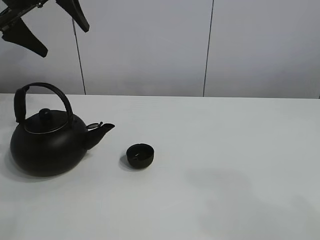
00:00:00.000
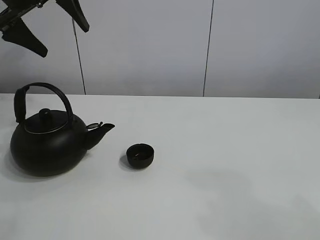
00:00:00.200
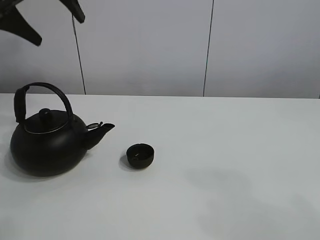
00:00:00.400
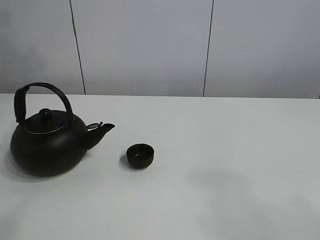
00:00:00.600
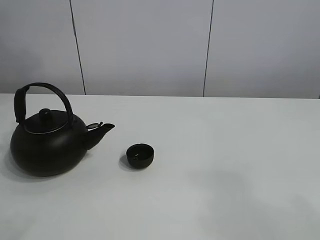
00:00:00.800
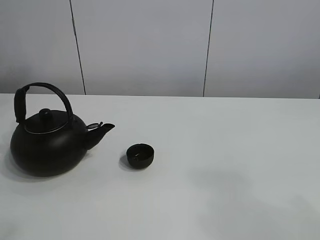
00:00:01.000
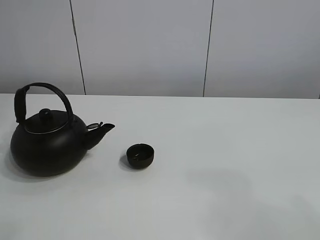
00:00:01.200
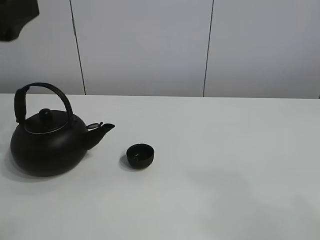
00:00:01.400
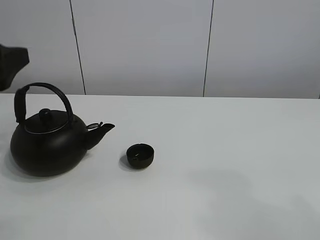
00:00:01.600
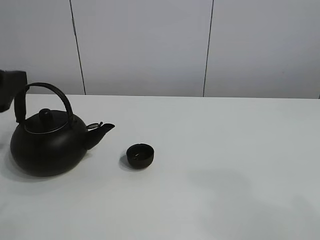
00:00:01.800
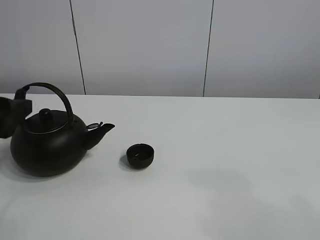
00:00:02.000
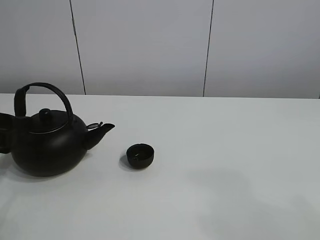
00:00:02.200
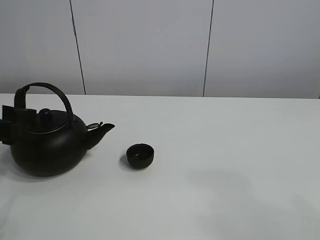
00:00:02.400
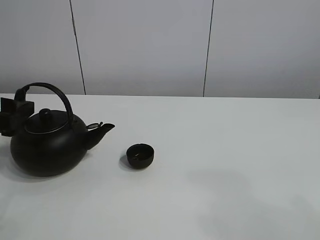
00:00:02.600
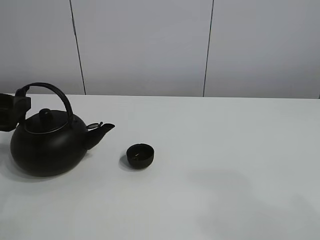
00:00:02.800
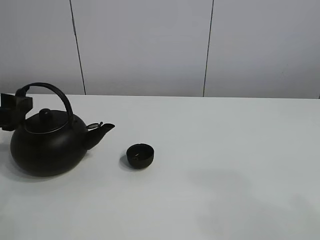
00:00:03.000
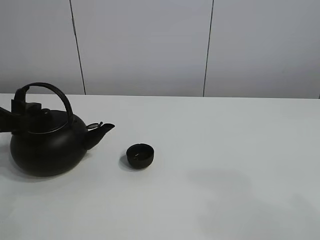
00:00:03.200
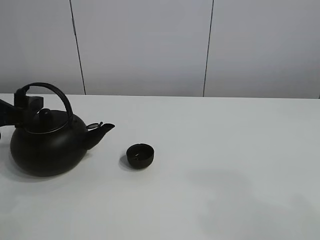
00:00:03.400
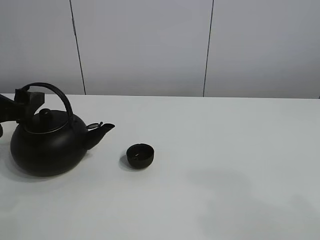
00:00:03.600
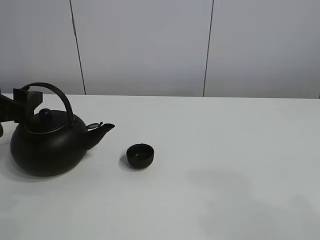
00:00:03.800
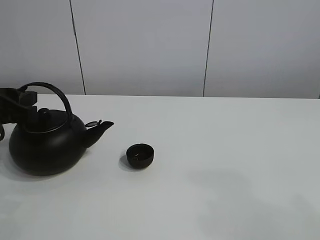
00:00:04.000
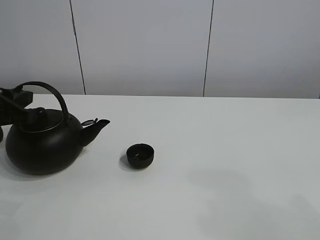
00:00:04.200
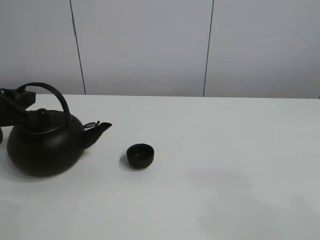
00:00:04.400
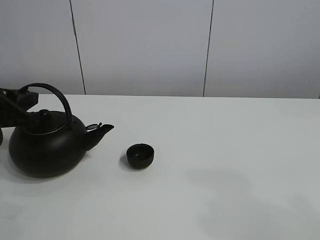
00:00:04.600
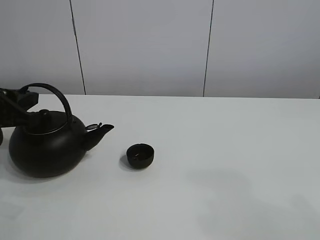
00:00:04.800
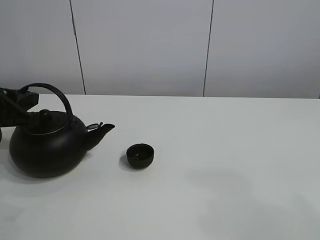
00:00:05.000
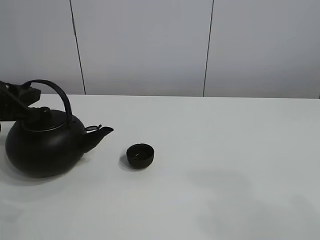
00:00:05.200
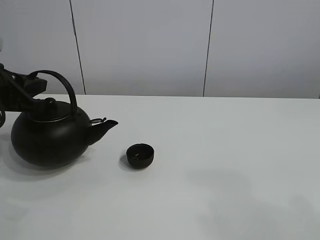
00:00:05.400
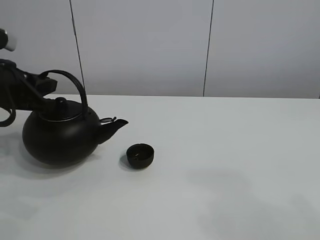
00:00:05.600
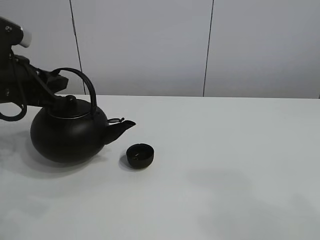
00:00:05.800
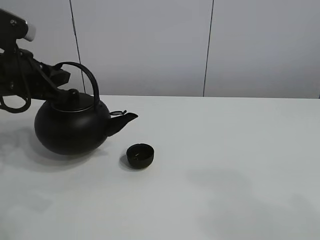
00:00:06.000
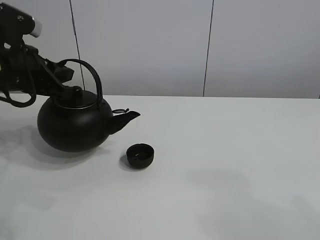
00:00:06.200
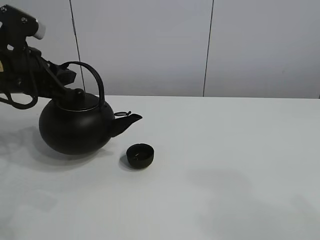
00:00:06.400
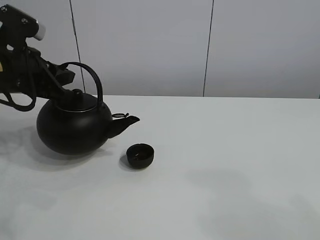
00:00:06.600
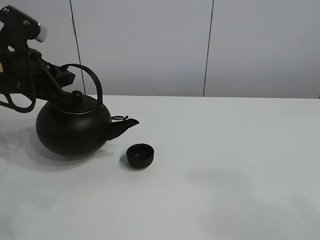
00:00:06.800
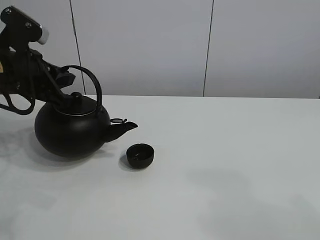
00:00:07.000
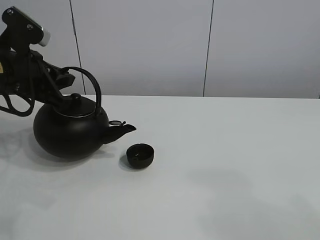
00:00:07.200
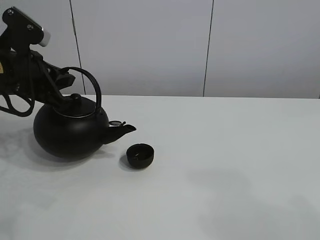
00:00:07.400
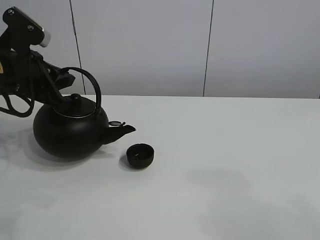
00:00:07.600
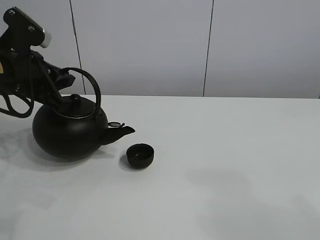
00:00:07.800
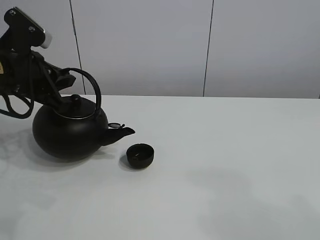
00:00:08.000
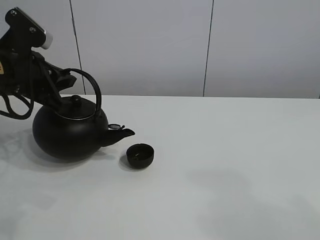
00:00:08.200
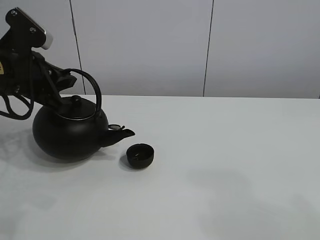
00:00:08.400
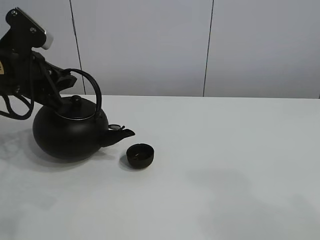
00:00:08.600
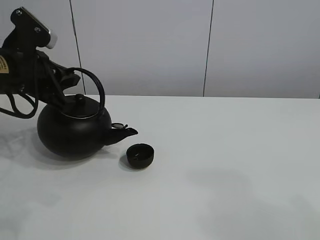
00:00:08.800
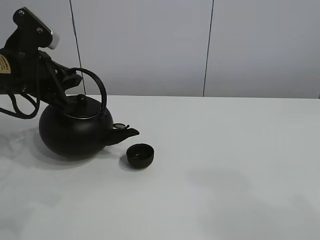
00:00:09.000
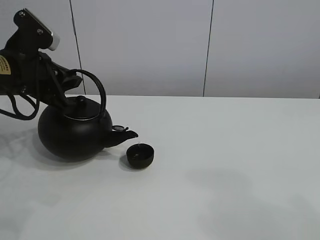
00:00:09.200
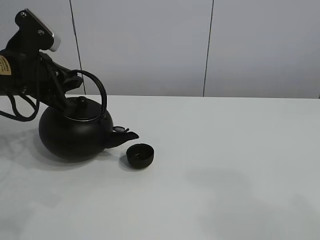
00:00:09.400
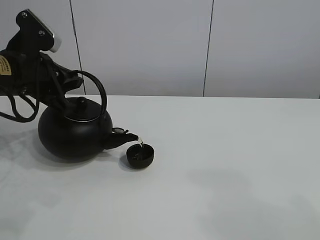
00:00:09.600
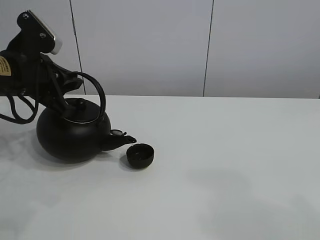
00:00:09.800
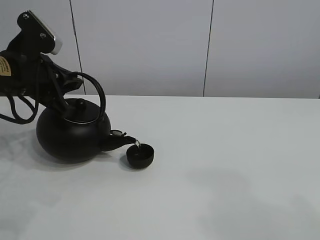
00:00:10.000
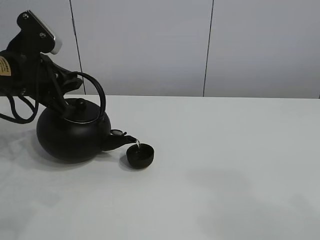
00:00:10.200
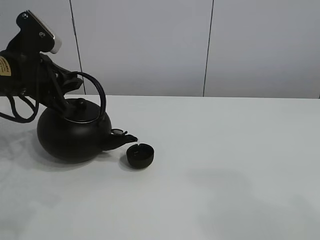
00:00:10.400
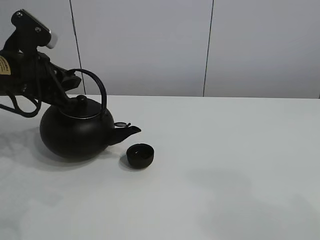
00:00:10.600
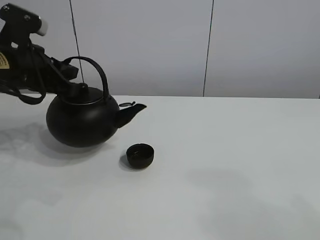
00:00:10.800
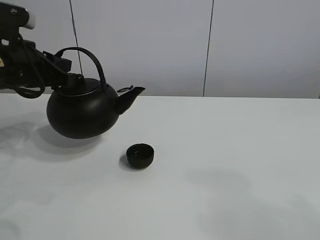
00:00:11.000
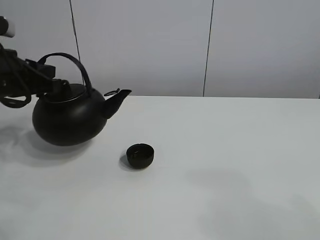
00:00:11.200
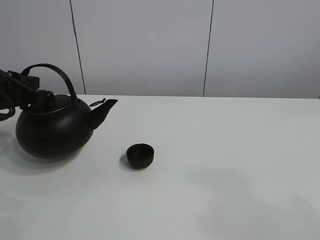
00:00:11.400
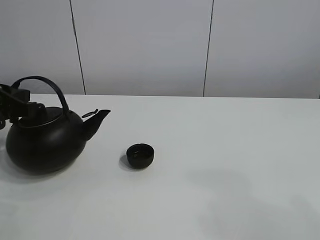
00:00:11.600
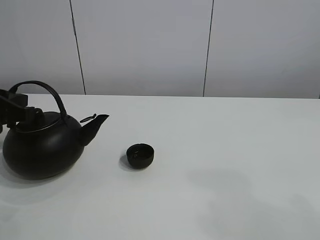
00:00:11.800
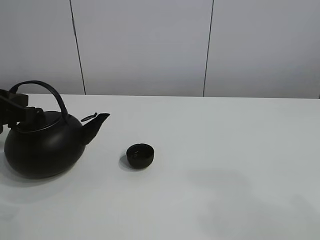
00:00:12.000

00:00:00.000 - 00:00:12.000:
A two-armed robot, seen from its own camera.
Task of the whole recording: pour tea into the teacup.
Step, 00:00:00.000 - 00:00:05.200: Pick up the teapot with the left gripper.
Step, 00:00:05.400 - 00:00:10.400: Pour tea into the teacup with the left gripper.
00:00:00.000 - 00:00:01.600: The left gripper moves backward and downward, approximately 20 cm.
00:00:01.600 - 00:00:03.000: The left gripper moves downward and forward, roughly 10 cm.
00:00:03.000 - 00:00:04.400: The left gripper closes its fingers.
00:00:04.400 - 00:00:06.000: The left gripper shifts by roughly 5 cm.
00:00:06.000 - 00:00:07.600: The grippers move only a little.
00:00:07.600 - 00:00:09.000: Both grippers stay put.
00:00:09.000 - 00:00:10.400: The two grippers keep their place.
00:00:10.400 - 00:00:12.000: The left gripper heads to the left and backward, covering roughly 10 cm.

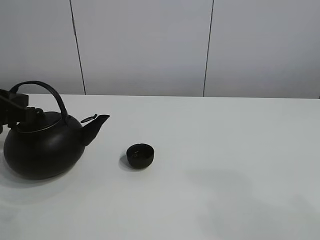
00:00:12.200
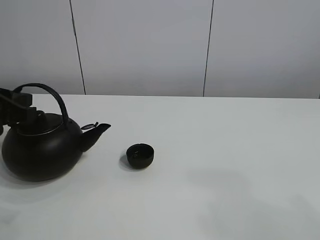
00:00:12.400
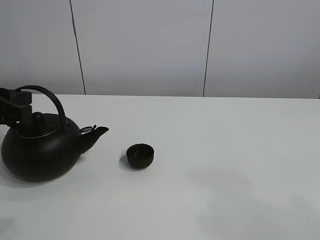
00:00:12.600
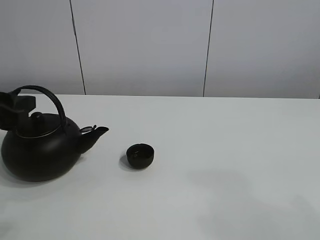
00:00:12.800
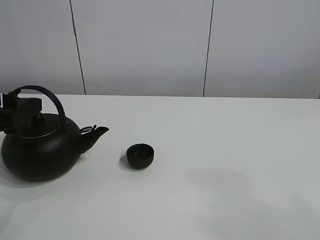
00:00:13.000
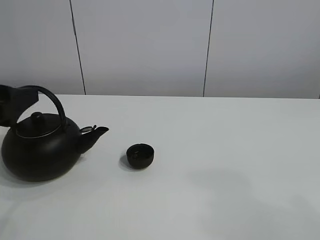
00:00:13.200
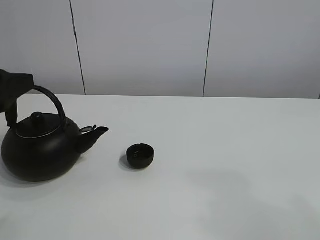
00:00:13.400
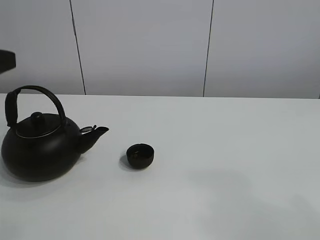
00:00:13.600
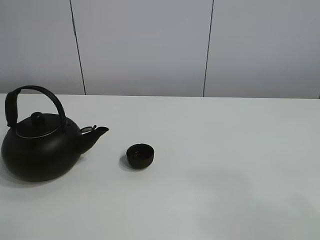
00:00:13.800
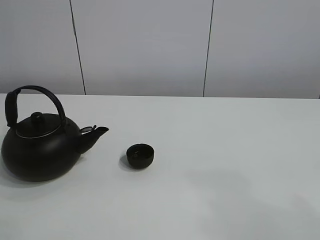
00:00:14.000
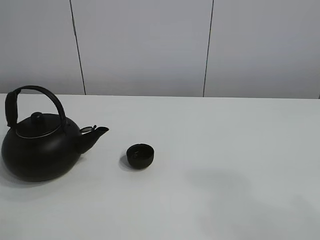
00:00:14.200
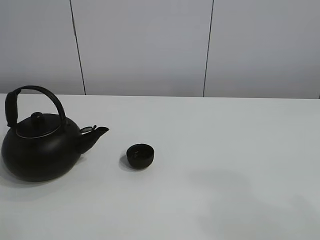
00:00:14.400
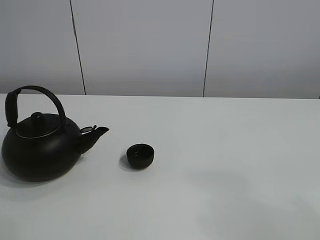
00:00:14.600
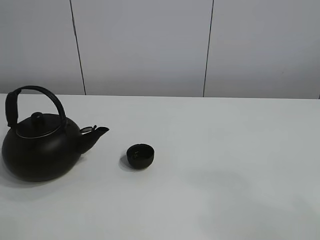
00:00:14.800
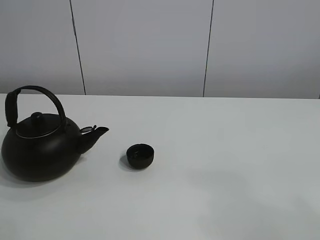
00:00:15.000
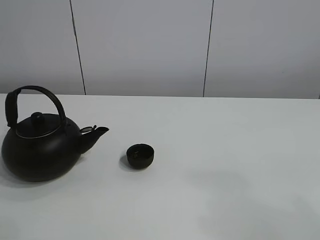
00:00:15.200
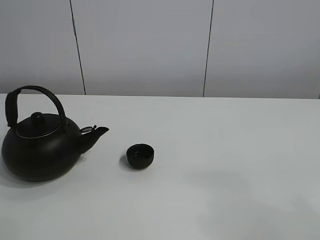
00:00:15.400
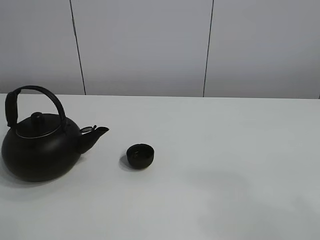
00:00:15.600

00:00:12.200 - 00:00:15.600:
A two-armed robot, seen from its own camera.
Task of the whole recording: pour tea into the teacup.
00:00:12.200 - 00:00:13.800: The left gripper moves upward and backward, approximately 20 cm, and opens.
